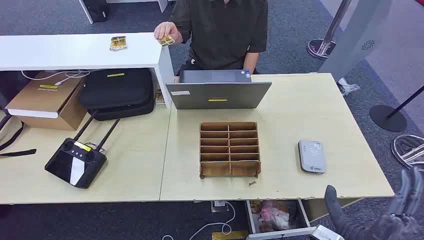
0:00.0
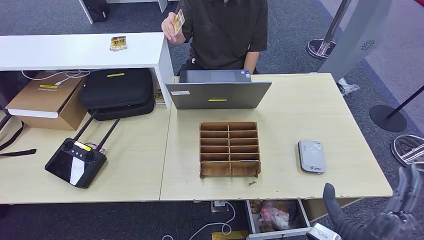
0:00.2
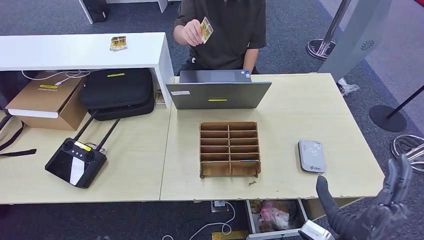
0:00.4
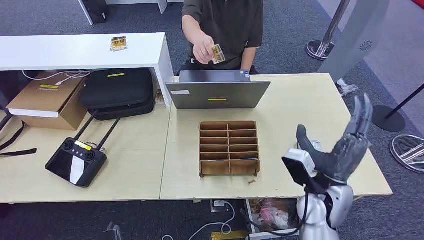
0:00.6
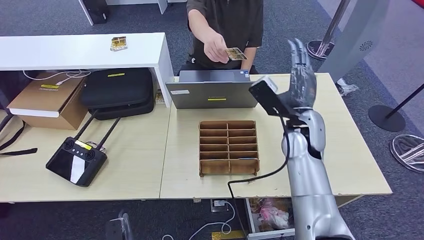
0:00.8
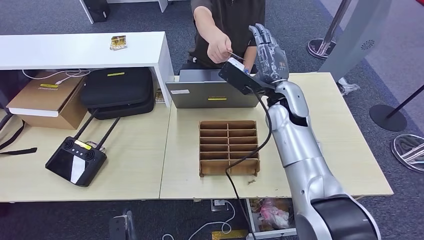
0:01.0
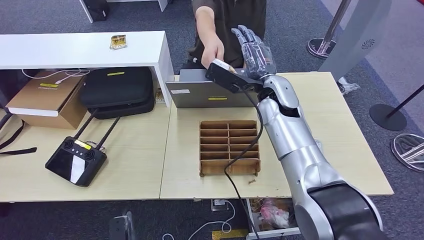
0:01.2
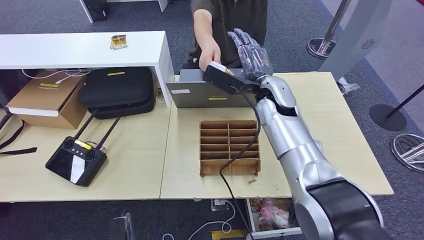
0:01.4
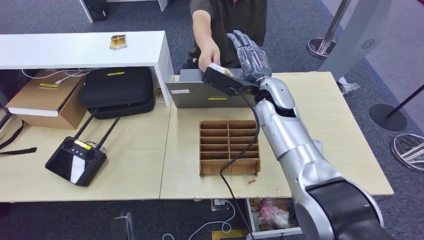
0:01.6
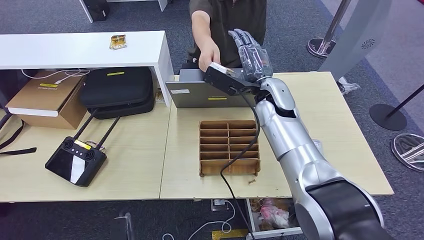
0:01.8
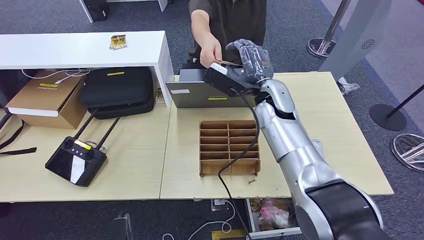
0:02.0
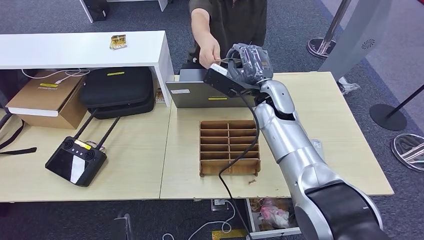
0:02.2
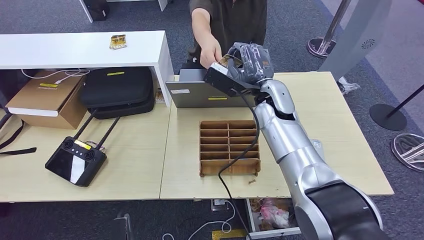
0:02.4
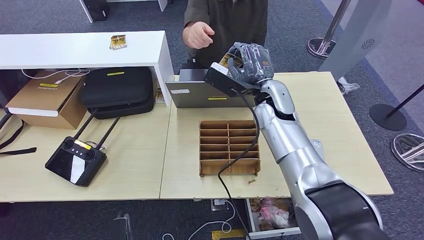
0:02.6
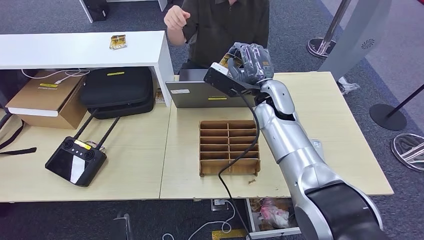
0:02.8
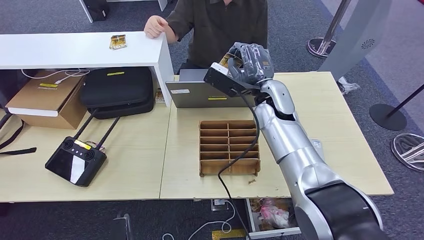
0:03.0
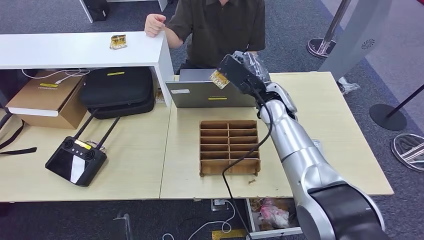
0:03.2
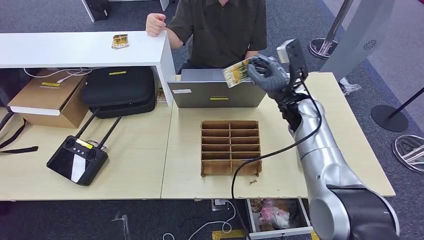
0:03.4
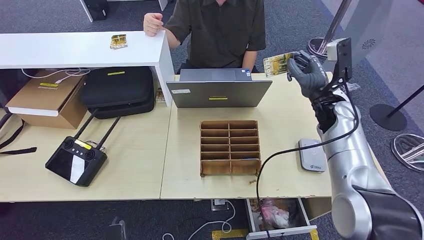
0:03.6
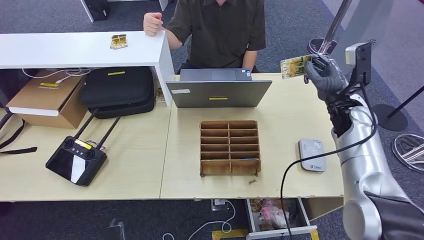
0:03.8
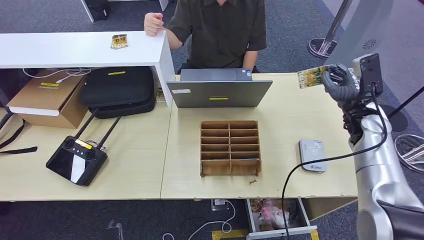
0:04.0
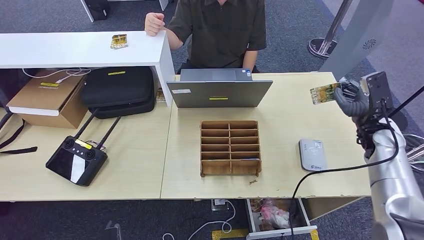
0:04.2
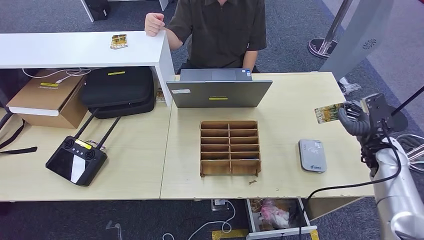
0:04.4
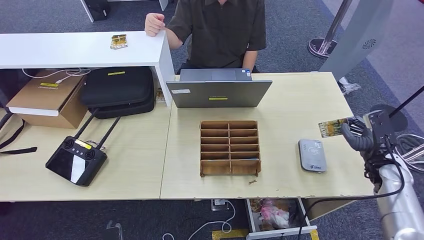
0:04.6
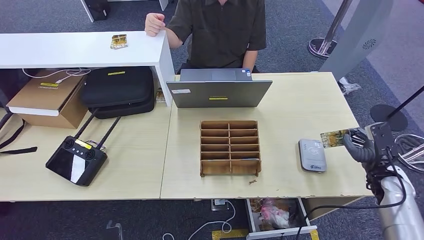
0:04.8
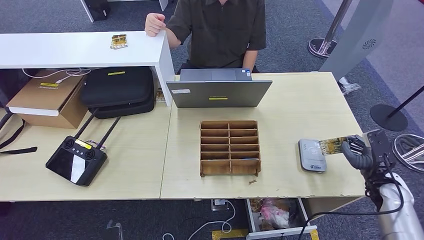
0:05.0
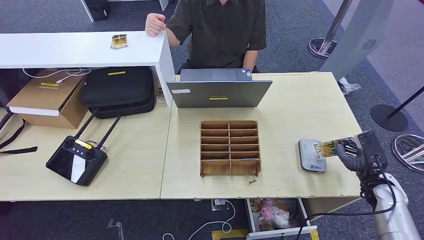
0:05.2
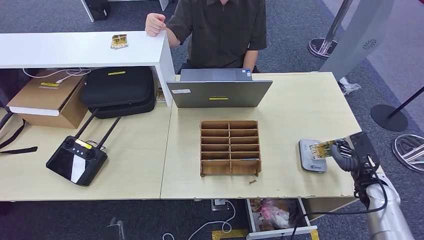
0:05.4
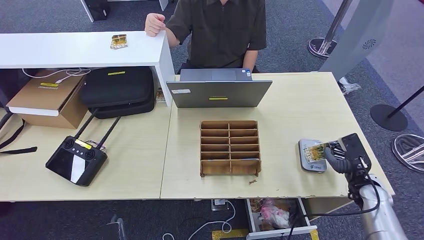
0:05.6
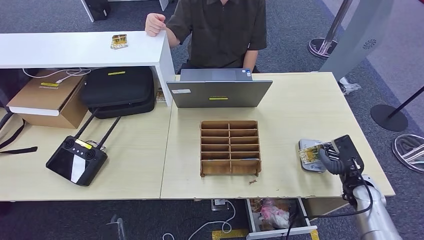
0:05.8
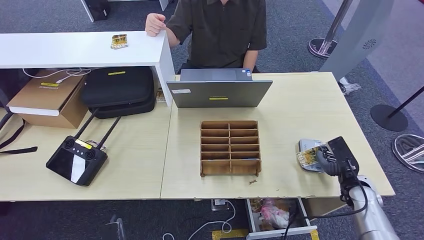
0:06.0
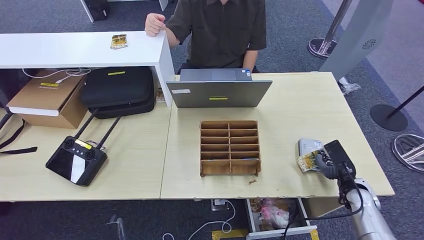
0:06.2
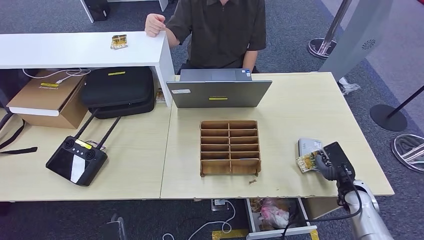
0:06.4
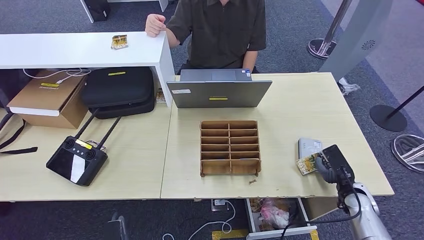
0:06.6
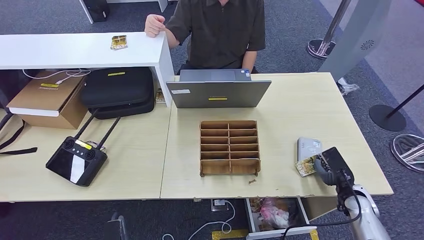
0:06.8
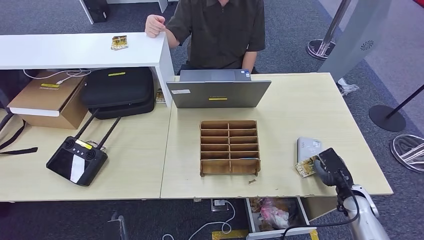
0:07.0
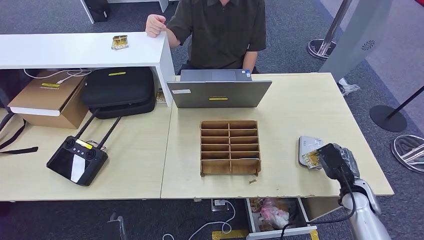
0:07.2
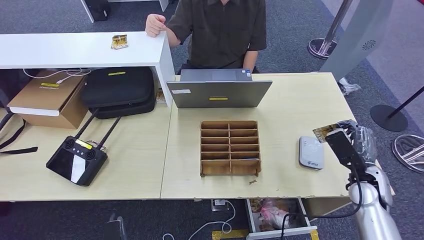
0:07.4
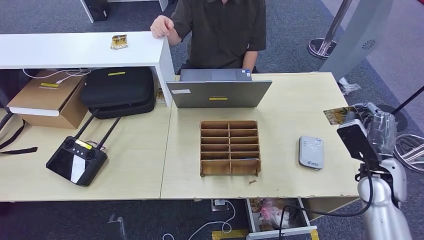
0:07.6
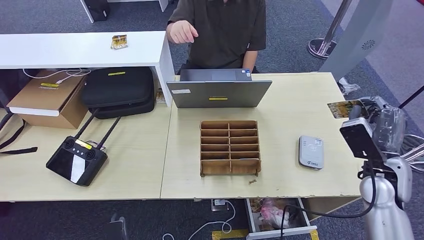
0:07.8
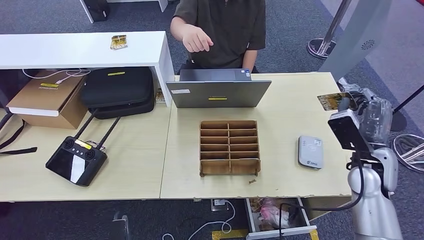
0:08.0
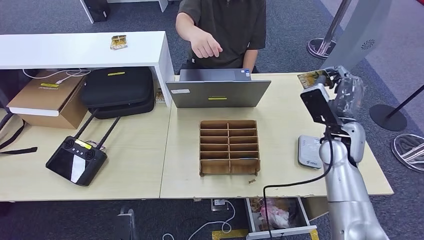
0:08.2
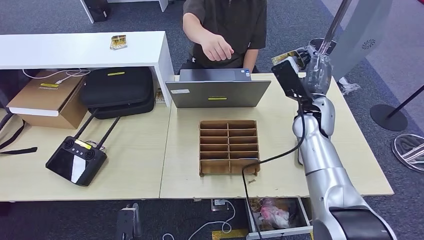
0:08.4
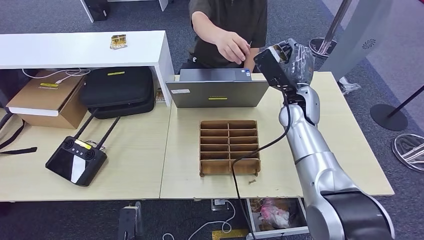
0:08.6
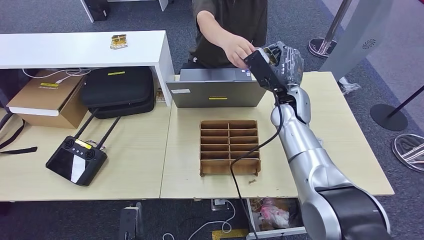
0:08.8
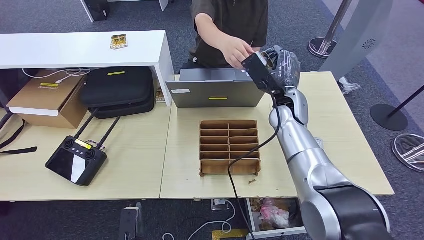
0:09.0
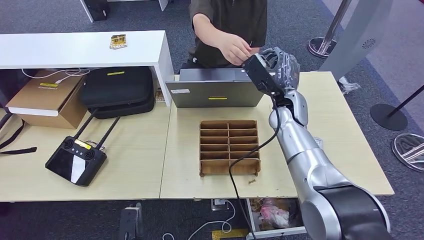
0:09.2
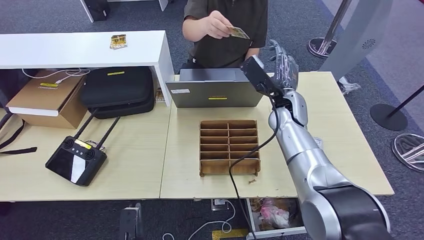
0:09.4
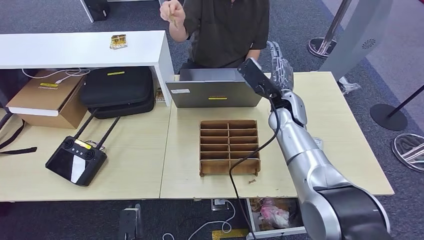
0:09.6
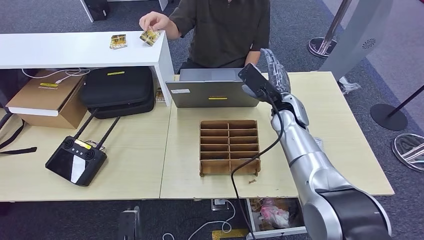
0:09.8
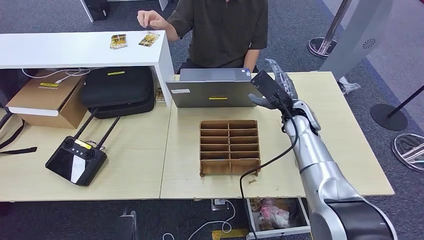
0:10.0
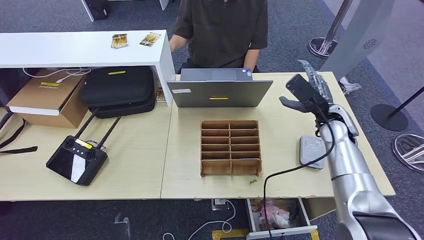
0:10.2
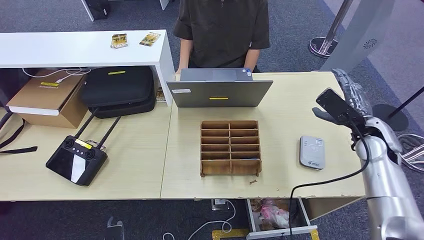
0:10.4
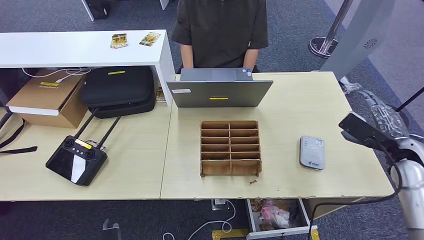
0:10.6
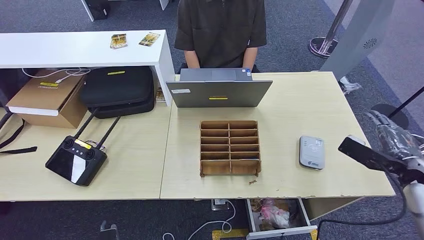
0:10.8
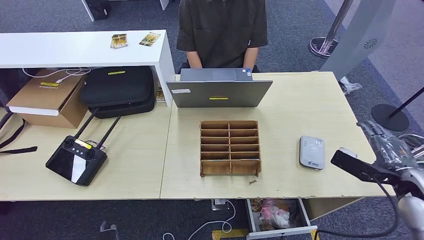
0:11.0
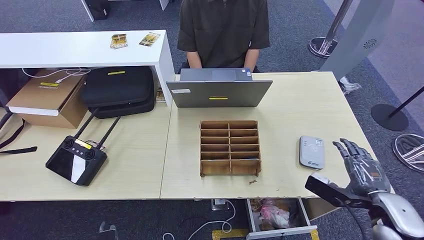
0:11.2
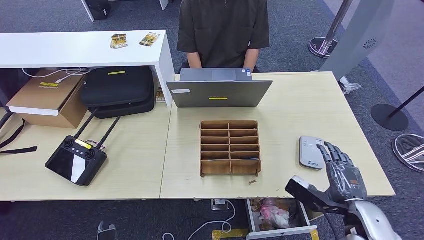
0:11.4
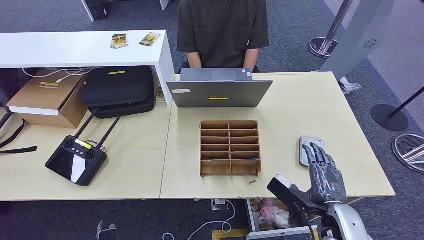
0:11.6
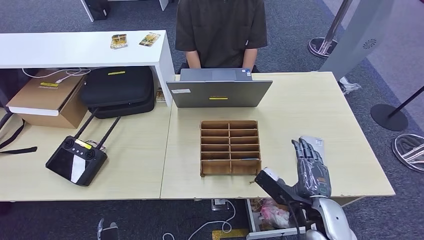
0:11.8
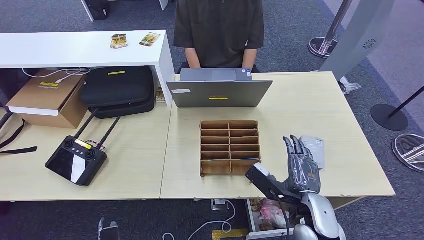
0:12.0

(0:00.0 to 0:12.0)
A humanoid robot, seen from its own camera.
Step, 0:00.0 - 0:03.2: Take the ID card from the person's hand.
Step, 0:03.4 - 0:06.0: Place the ID card on the card reader.
Step, 0:06.4 - 0:10.2: Hand the ID card to the person.
0:01.6 - 0:03.0: The hands stay close to where they were, moving slightly.
0:03.0 - 0:04.4: The right hand is displaced to the right by about 30 cm.
0:04.4 - 0:06.0: The right hand heads downward and backward, covering roughly 10 cm.
0:06.0 - 0:07.6: The right hand goes some 10 cm upward.
0:07.6 - 0:09.0: The right hand heads to the left and forward, covering about 25 cm.
0:09.0 - 0:10.4: The left hand ends up approximately 5 cm from where it was. The right hand shifts roughly 20 cm to the right.
0:10.4 - 0:12.0: The right hand moves to the left, backward and downward, about 25 cm.

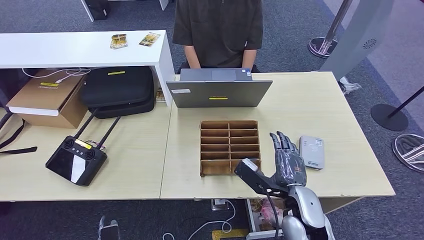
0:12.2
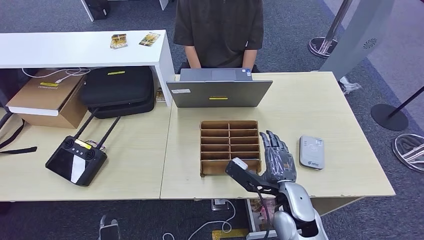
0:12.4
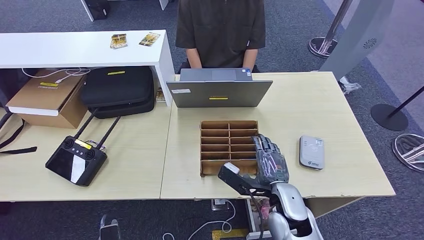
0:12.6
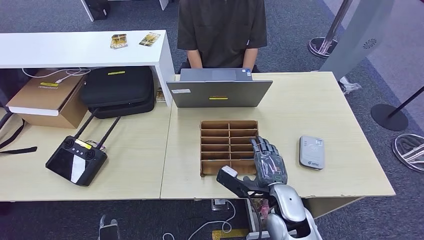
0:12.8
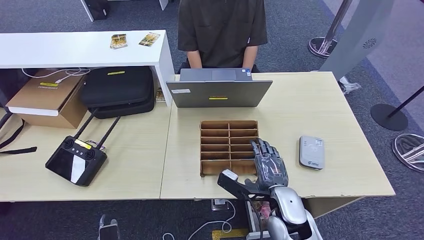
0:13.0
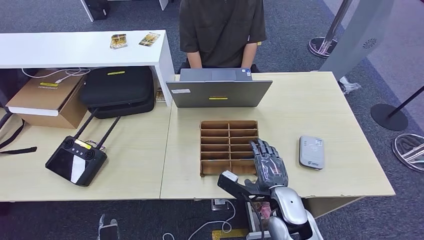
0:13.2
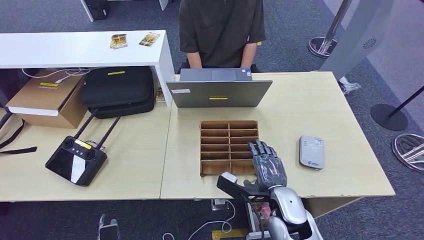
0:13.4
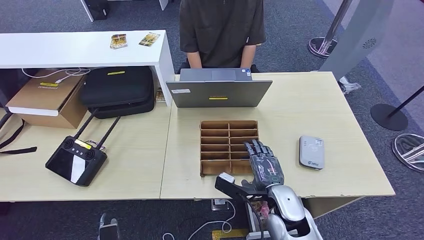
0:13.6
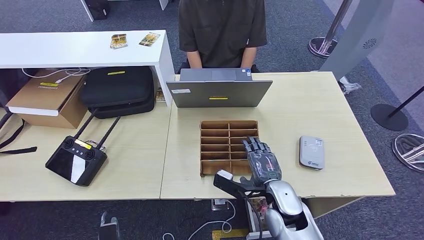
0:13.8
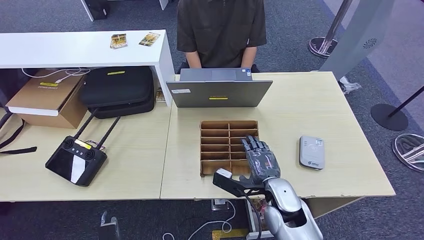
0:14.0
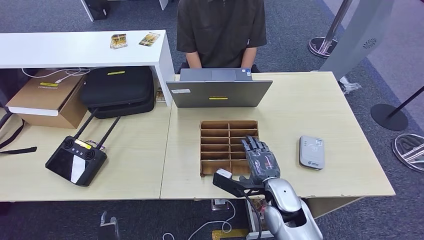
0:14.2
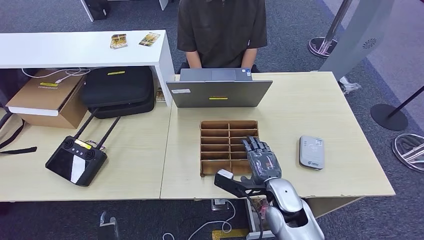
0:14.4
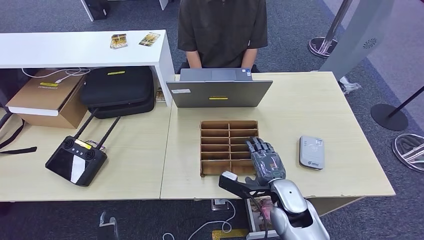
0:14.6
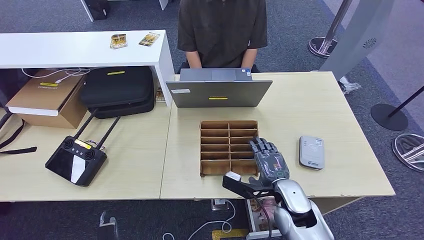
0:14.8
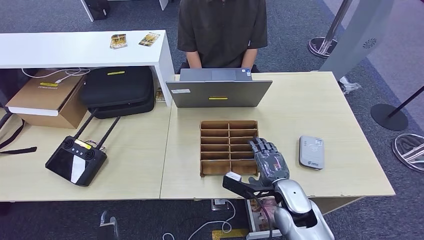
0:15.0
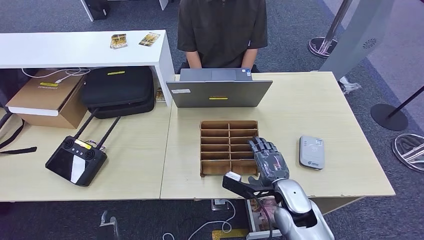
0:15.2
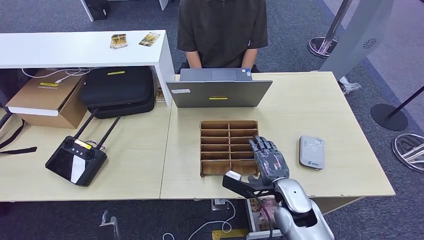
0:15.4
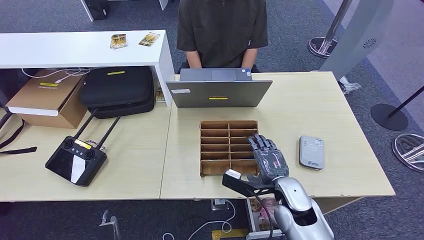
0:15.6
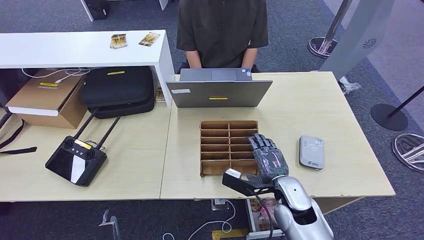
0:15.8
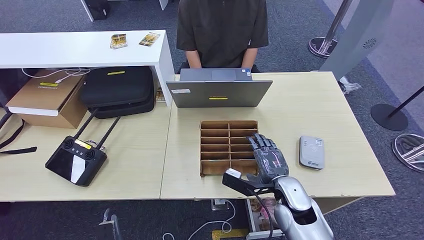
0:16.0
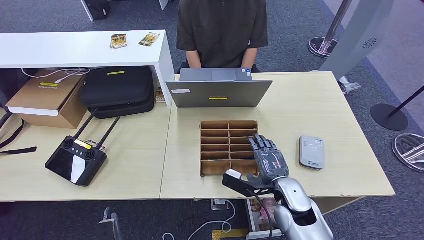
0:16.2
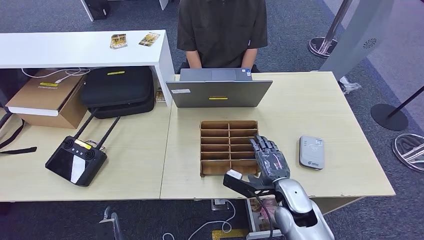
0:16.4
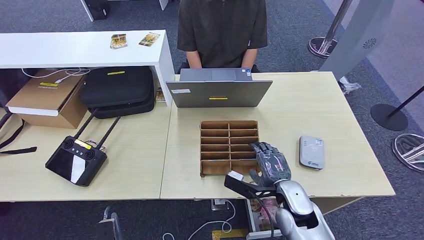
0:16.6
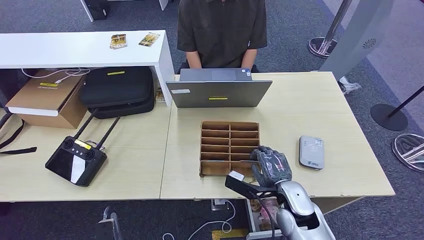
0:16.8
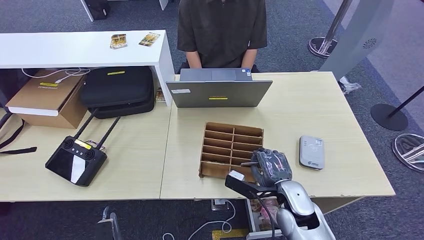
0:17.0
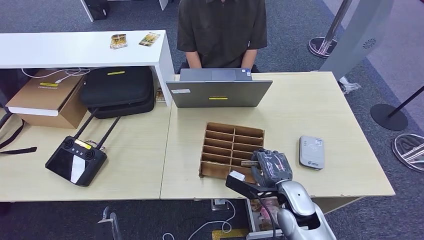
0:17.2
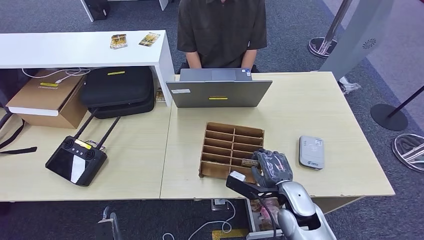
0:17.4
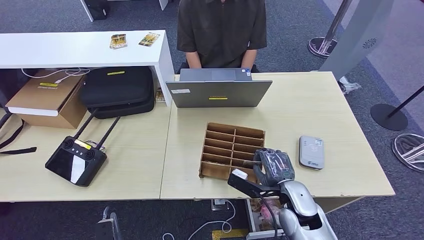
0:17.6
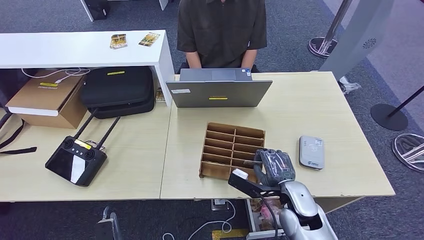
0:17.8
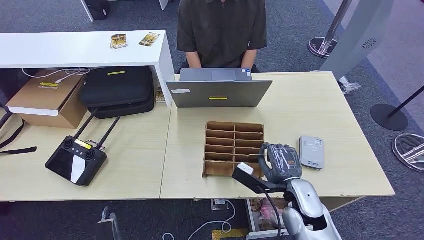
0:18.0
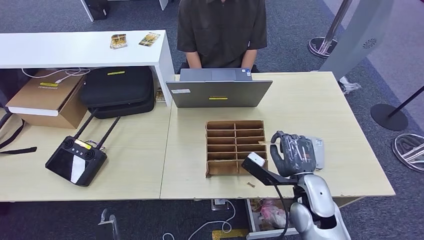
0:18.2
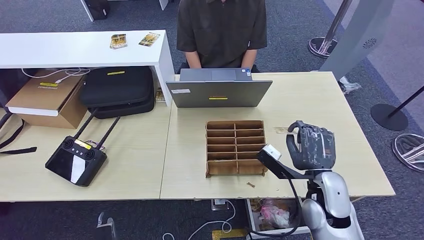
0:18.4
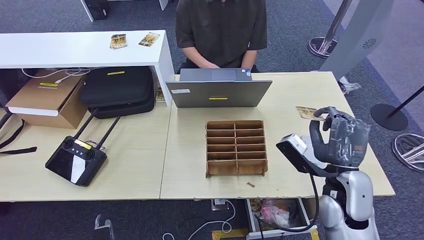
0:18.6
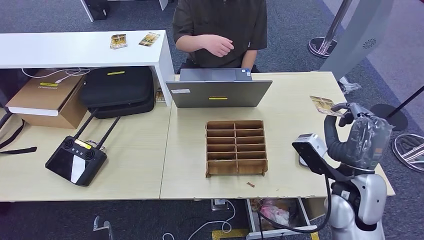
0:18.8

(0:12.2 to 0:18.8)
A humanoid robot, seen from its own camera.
Step, 0:12.2 - 0:18.4: Pick up the room key from the key card box.
0:12.2 - 0:15.4: There are only small adjustments of the hands.
0:15.4 - 0:17.2: Neither hand changes place.
0:17.2 - 0:18.8: The right hand heads upward and to the right, covering roughly 15 cm.
